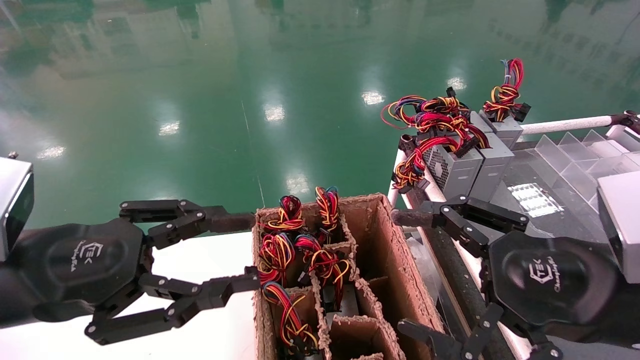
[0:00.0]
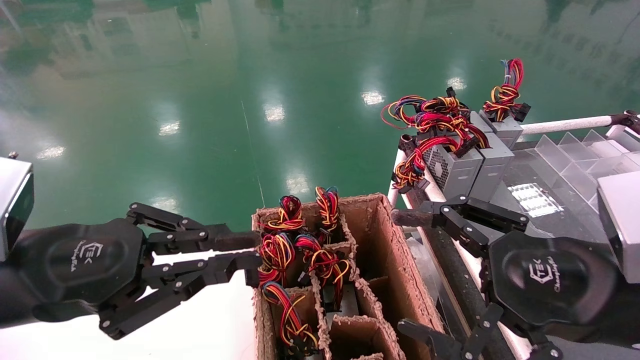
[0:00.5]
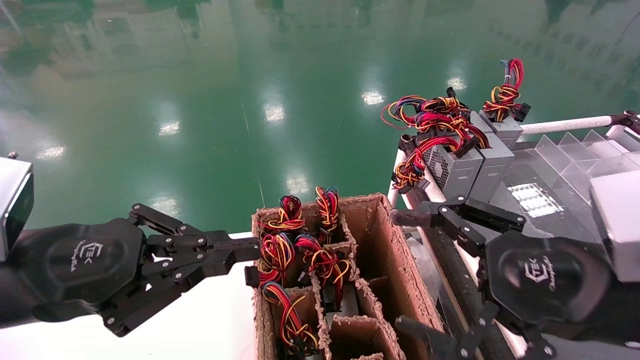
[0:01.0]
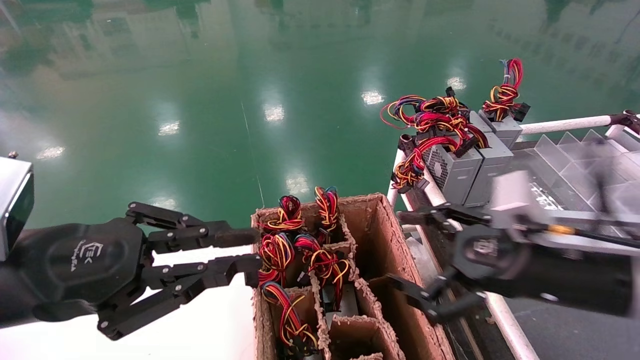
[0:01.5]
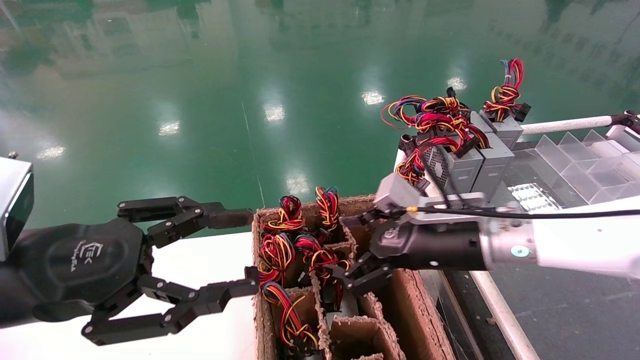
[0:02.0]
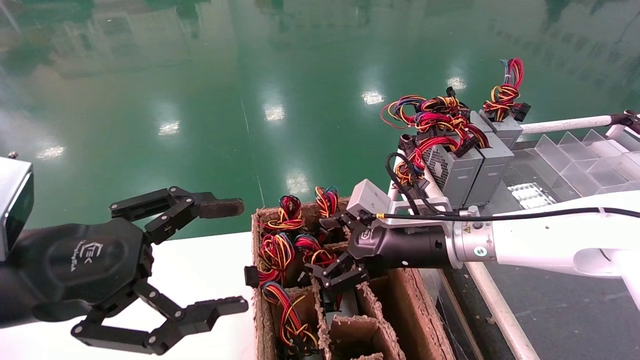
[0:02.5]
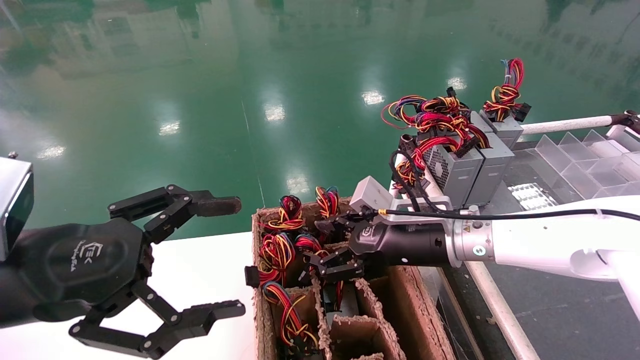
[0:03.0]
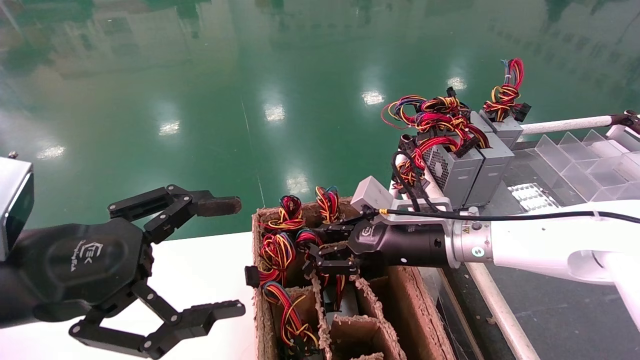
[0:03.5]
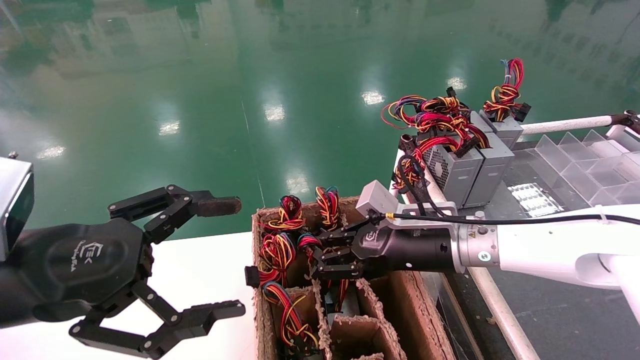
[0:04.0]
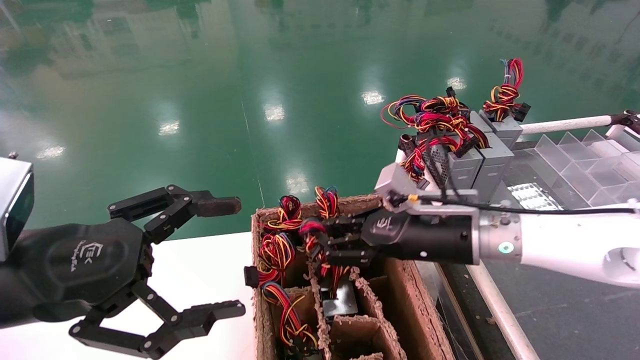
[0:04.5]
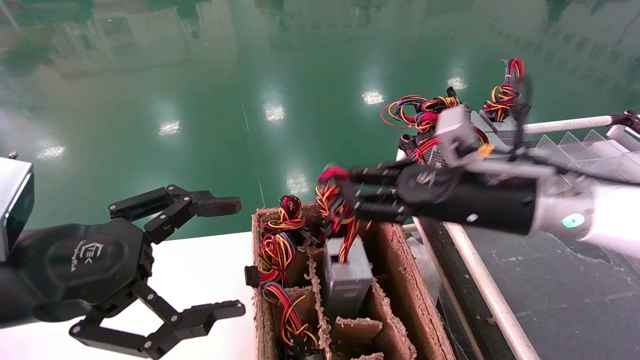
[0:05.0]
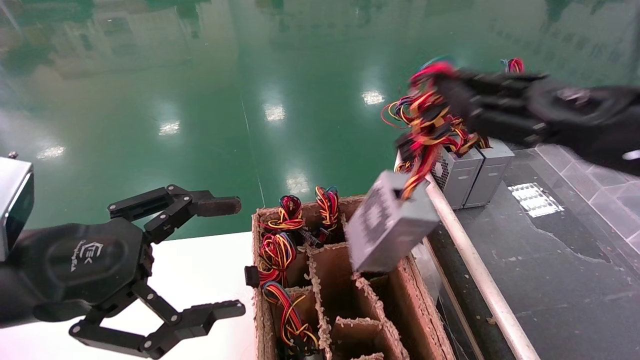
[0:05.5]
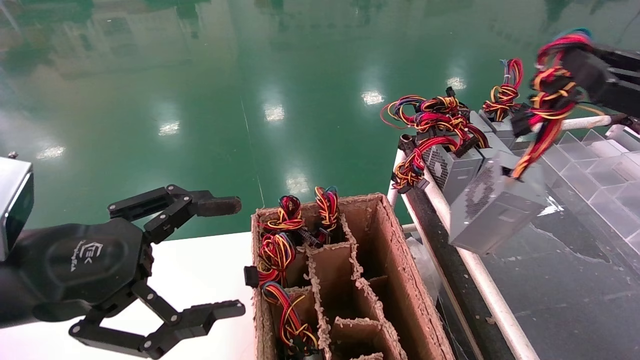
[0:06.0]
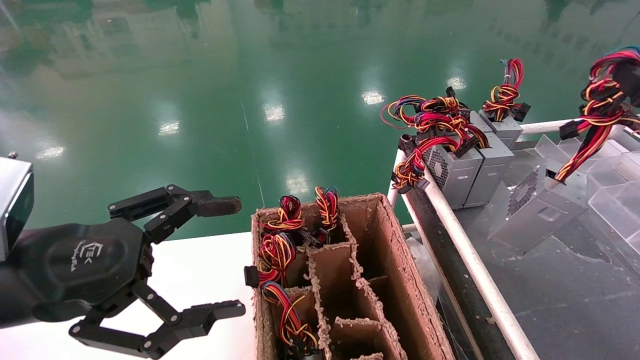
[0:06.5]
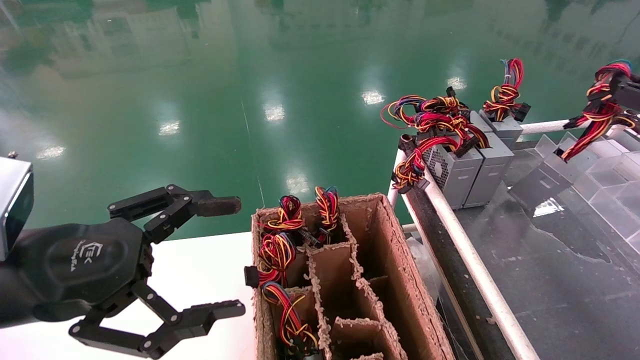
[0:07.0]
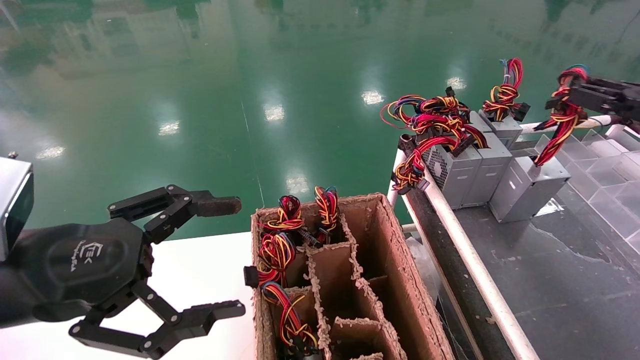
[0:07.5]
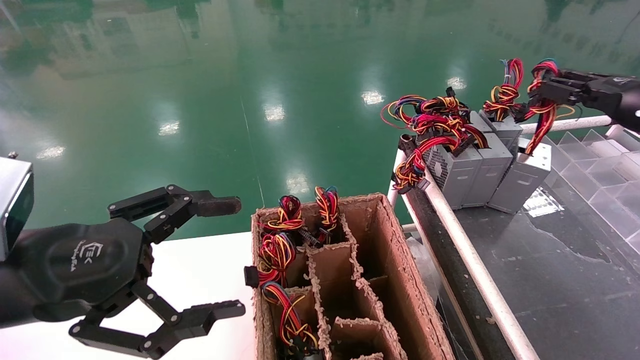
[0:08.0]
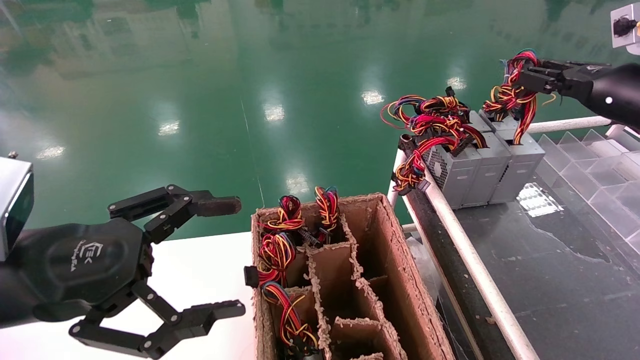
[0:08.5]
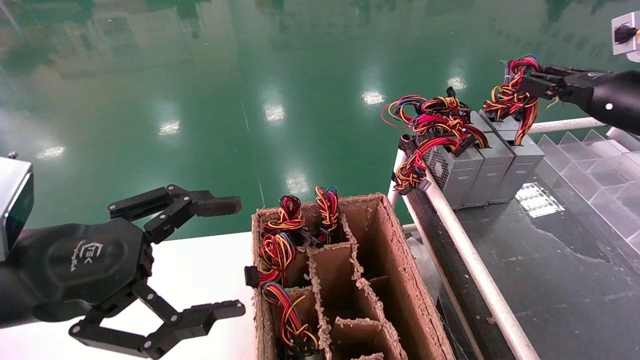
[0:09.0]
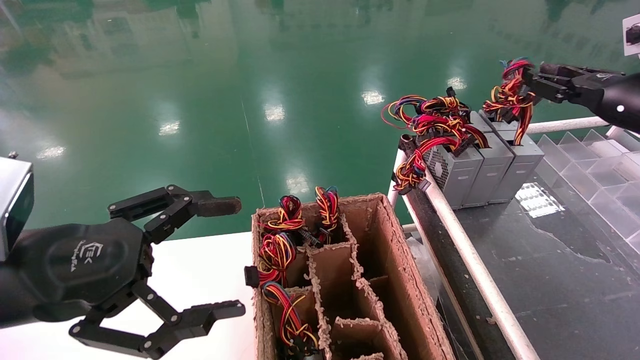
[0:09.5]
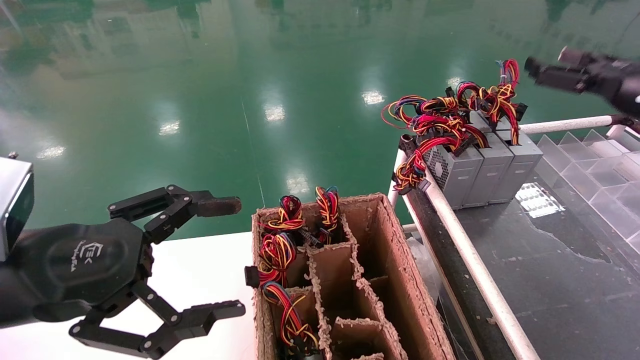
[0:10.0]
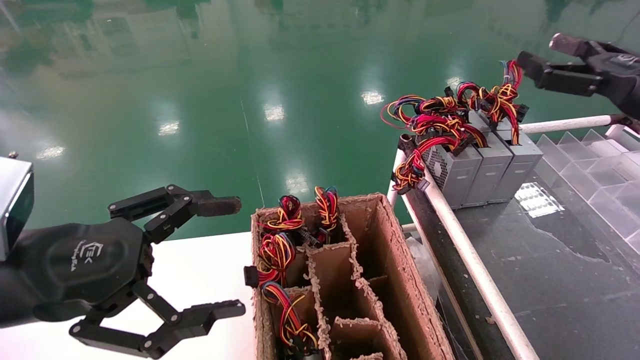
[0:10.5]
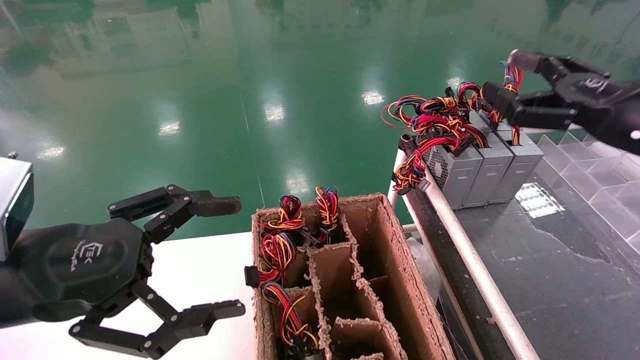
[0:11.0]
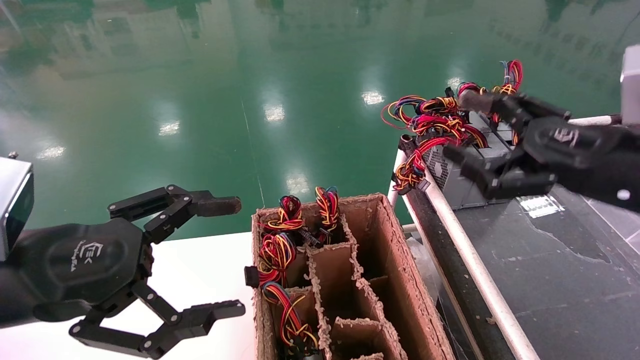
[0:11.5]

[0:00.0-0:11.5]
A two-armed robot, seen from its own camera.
Step, 0:01.0 to 0:03.5: Grab and lift the power supply from the large box.
Step, 0:04.0 to 0:09.0: Place the power supply on the operating table.
0:00.0 to 0:02.0: The left gripper closes, then opens again, while the right gripper is displaced forward and to the left by approximately 20 cm.
0:02.0 to 0:04.0: The right gripper closes. The left gripper opens up.
0:04.0 to 0:06.0: The right gripper is displaced to the right, upward and backward by some 35 cm.
0:06.0 to 0:07.5: The right gripper travels forward and to the right by approximately 10 cm.
0:07.5 to 0:09.5: The right gripper moves about 5 cm.
0:09.5 to 0:11.5: The right gripper shifts approximately 15 cm backward and to the left, and opens its fingers.
